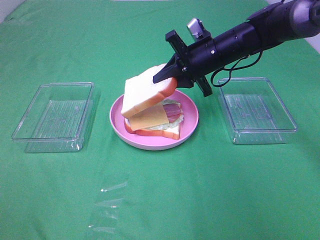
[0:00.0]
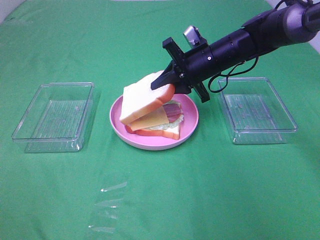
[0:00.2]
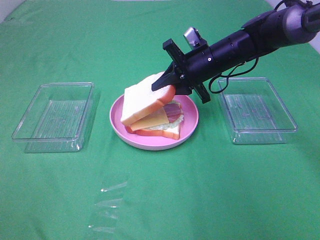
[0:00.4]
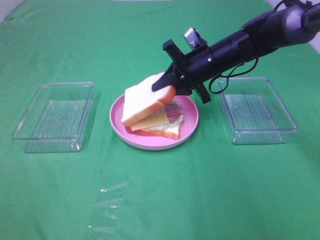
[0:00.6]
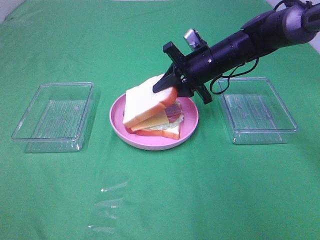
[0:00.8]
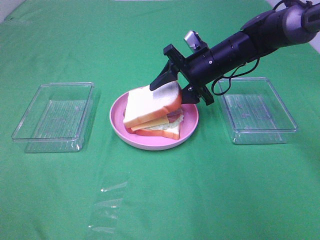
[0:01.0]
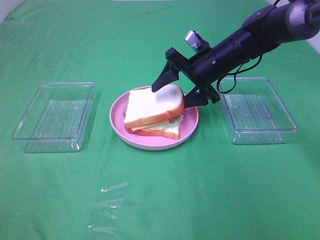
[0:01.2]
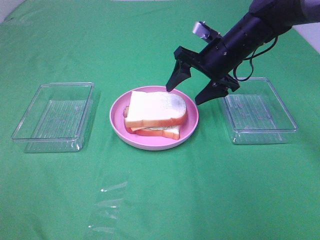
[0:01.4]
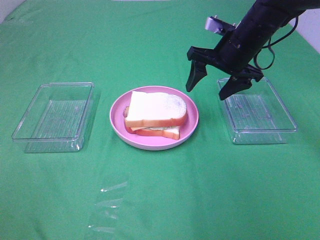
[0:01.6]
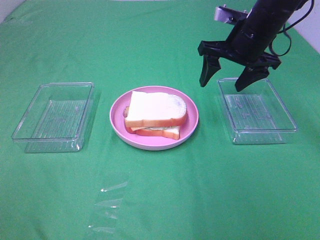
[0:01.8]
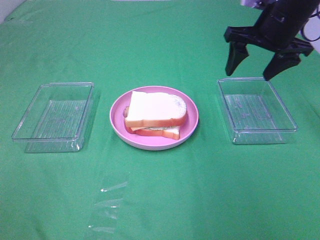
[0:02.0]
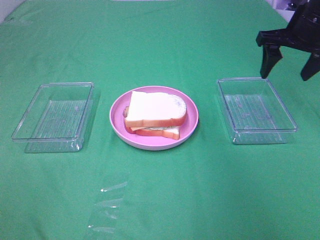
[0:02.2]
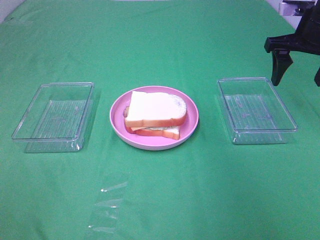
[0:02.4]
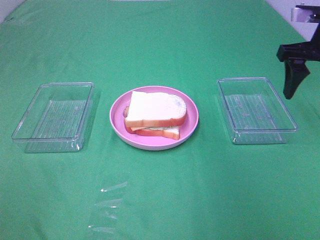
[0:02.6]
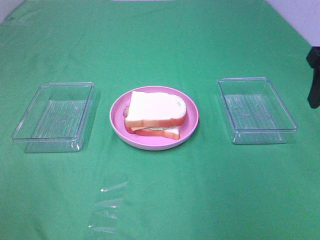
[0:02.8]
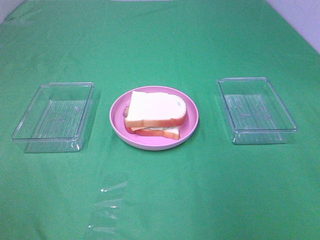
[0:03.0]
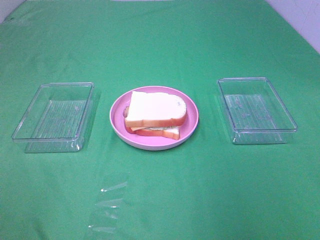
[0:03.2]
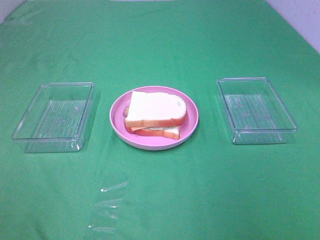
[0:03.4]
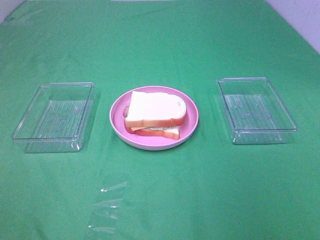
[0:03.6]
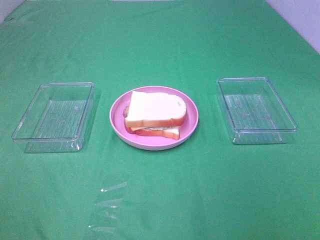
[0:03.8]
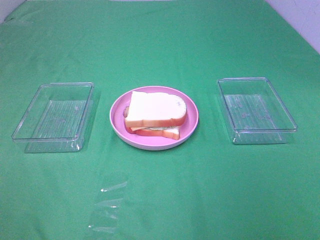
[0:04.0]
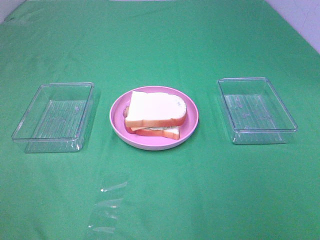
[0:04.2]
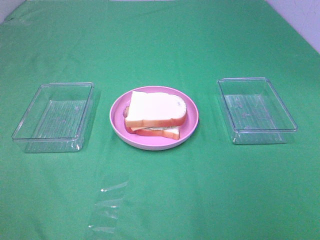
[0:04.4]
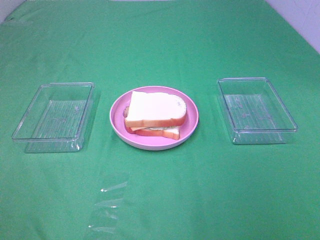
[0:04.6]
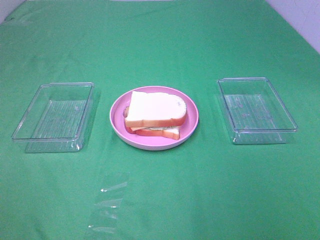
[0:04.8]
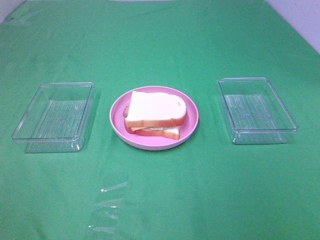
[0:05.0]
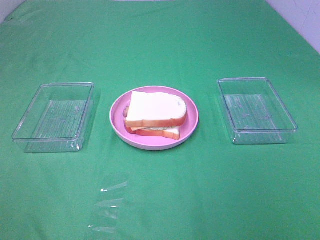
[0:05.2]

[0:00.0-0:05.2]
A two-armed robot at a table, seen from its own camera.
Task of the whole recording: Make sandwiches.
0:00.0 to 0:01.8: The right gripper travels upward and to the right by approximately 10 cm, and opens.
0:01.8 to 0:03.4: The right gripper is displaced backward by approximately 35 cm.

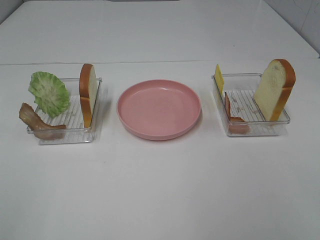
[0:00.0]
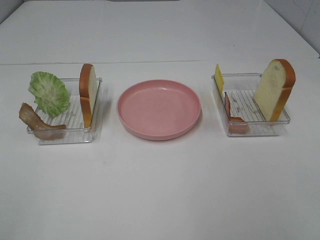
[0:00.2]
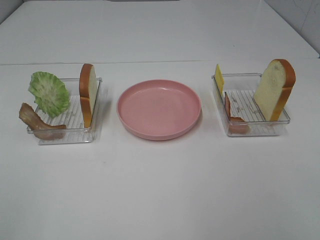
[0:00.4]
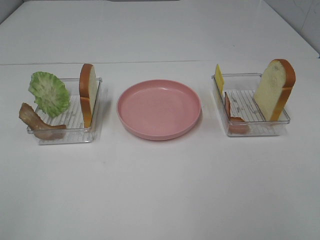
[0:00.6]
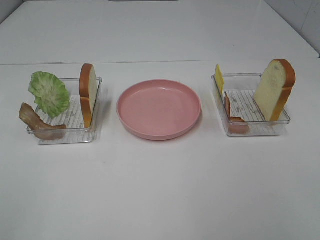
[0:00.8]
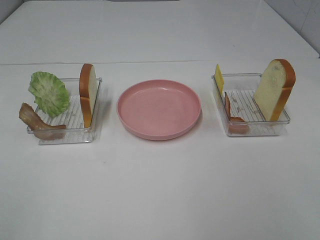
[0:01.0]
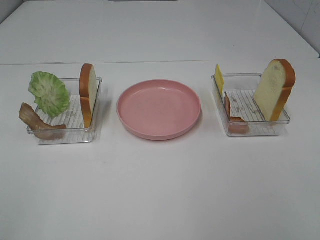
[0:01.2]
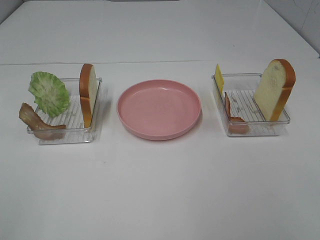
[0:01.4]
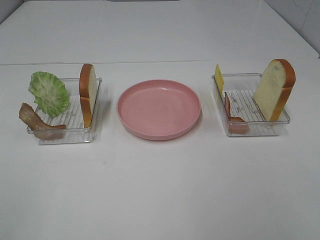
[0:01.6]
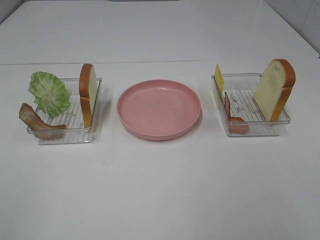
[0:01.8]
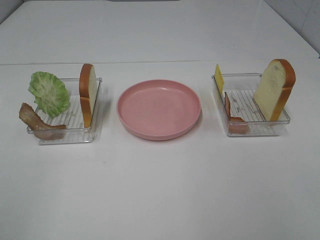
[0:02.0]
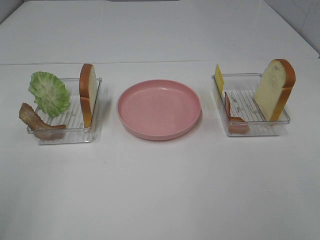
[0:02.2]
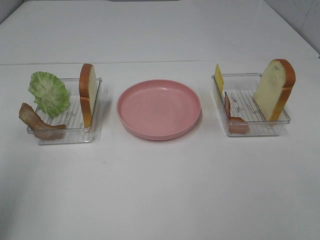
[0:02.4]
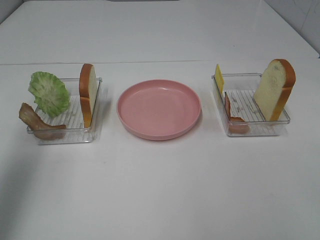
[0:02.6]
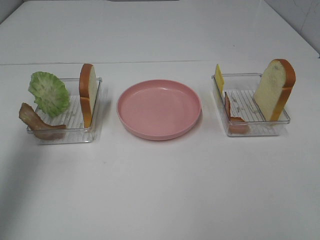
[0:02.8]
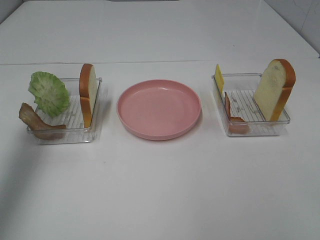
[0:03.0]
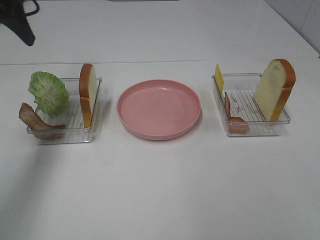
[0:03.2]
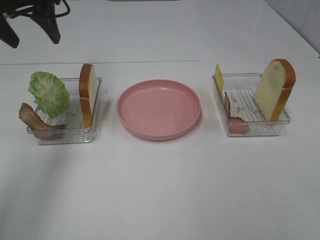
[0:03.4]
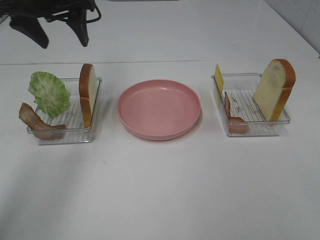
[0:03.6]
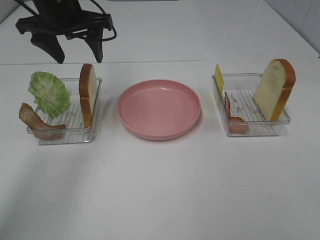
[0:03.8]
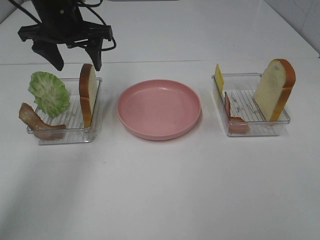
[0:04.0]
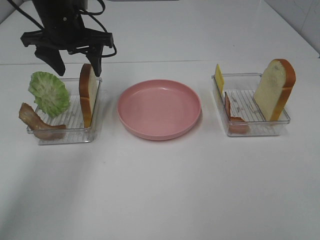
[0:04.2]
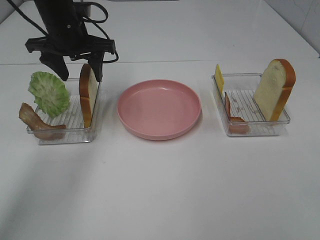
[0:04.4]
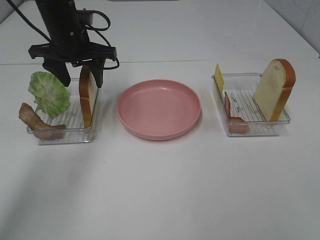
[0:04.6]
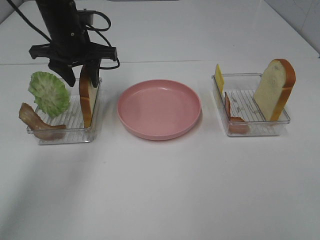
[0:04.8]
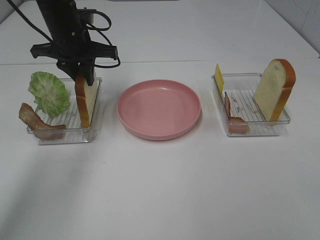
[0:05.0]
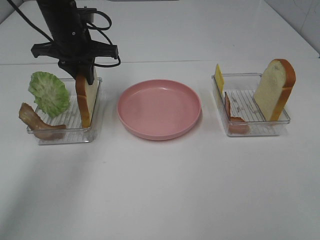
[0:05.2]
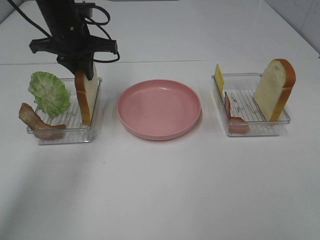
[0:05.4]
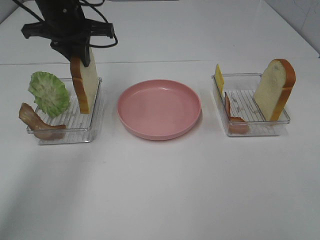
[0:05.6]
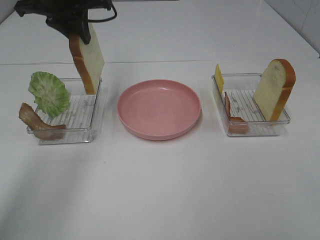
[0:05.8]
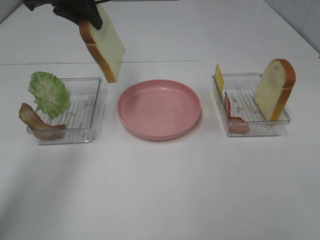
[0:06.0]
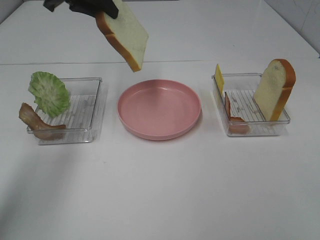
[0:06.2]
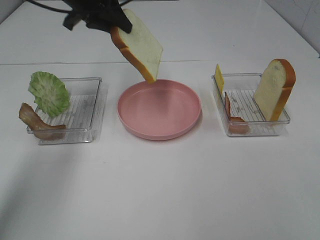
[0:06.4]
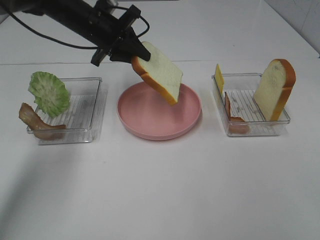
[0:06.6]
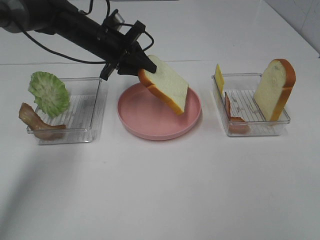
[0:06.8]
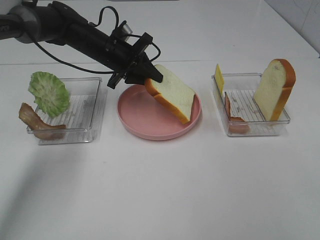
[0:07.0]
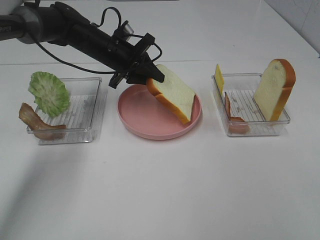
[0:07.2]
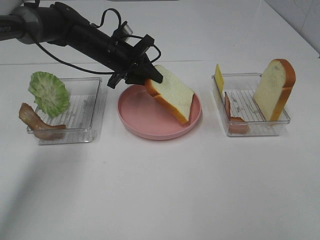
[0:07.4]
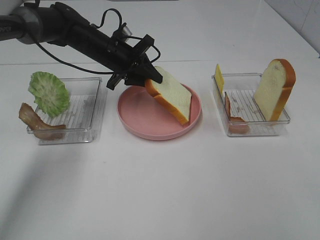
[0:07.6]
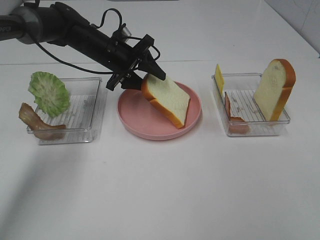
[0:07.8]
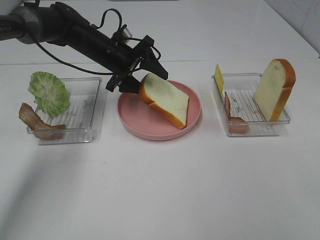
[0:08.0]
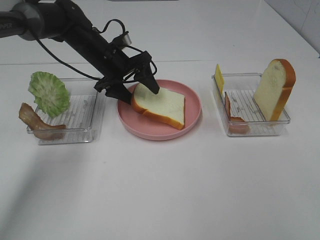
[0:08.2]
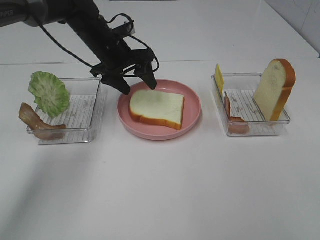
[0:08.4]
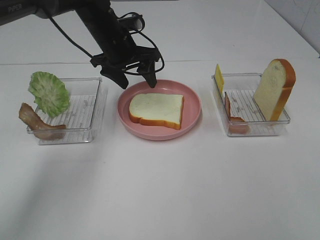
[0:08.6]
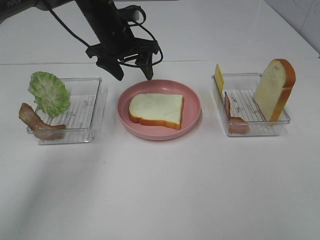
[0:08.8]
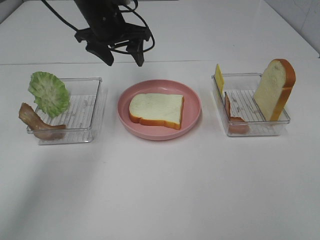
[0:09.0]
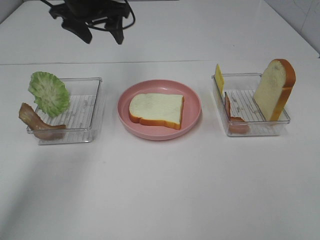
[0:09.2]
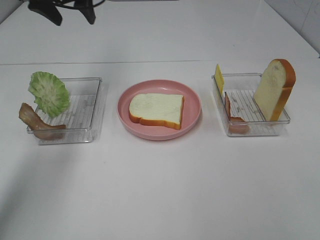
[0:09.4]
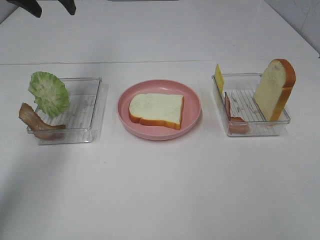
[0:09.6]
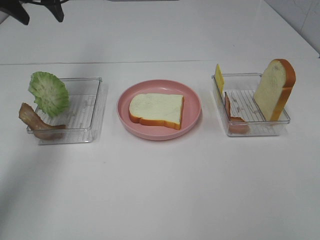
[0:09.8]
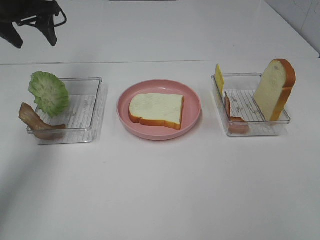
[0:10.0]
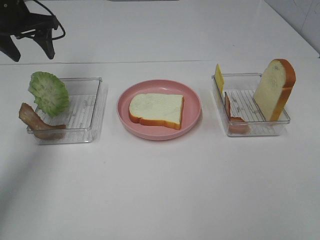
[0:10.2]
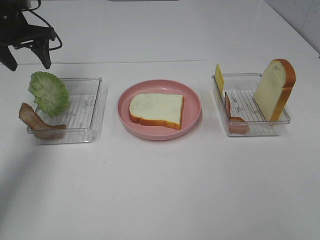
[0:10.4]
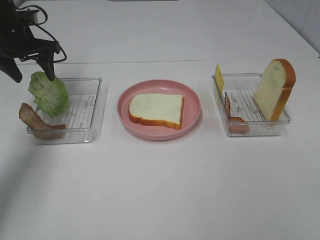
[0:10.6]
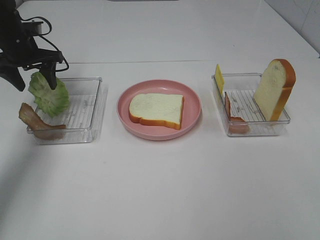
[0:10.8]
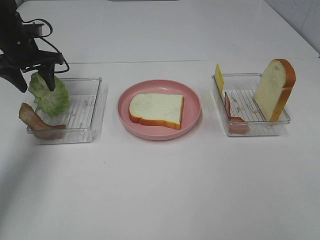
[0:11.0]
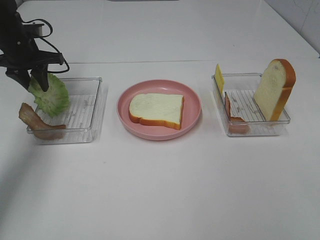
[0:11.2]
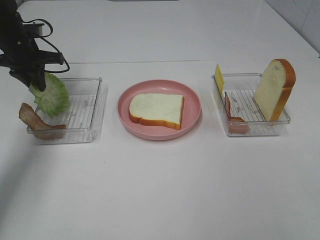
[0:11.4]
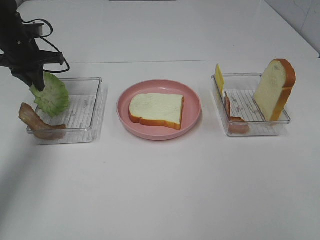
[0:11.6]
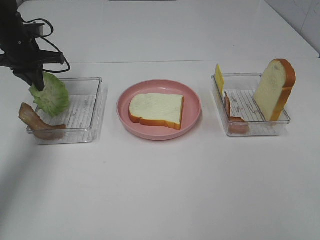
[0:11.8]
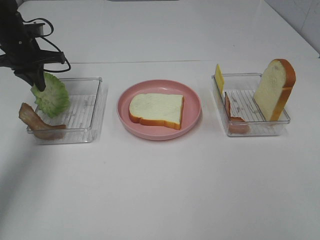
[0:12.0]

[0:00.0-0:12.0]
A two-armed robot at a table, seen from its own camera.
Task of the whole recording: Make sandwiches.
Step, 0:00.0 to 0:04.8: Left hand:grab the bread slice.
Step, 0:05.0 to 0:08.4: Left hand:place the bread slice on the plate.
Step, 0:08.6 to 0:11.4: Left hand:grab the lettuce slice.
0:00.0 to 0:01.6: The two grippers keep their place.
0:01.6 to 0:03.0: The left gripper shifts some 30 cm forward.
0:03.0 to 0:04.4: The left gripper travels to the right, forward and downward by about 20 cm.
0:04.4 to 0:06.0: The left gripper goes roughly 10 cm upward, and closes.
0:06.0 to 0:07.6: The left gripper is displaced downward by some 20 cm.
0:07.6 to 0:09.0: The left gripper goes some 10 cm upward, and opens up.
0:09.0 to 0:10.4: The left gripper goes approximately 20 cm to the left.
0:10.4 to 0:12.0: The left gripper shifts about 5 cm downward, and closes.

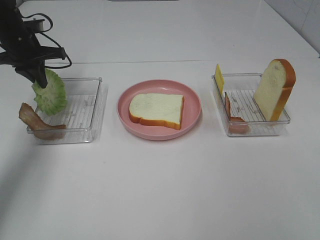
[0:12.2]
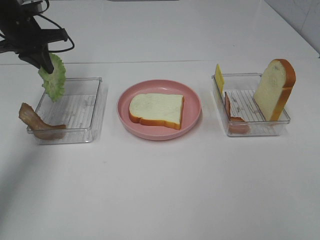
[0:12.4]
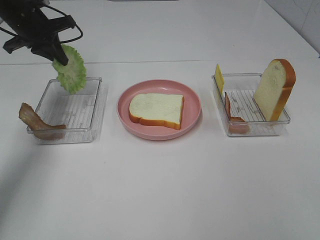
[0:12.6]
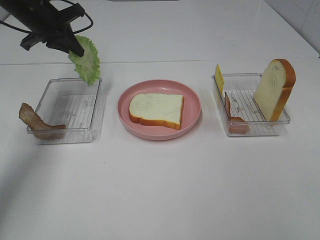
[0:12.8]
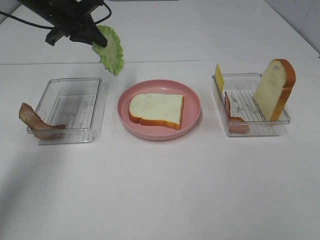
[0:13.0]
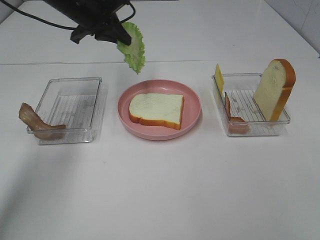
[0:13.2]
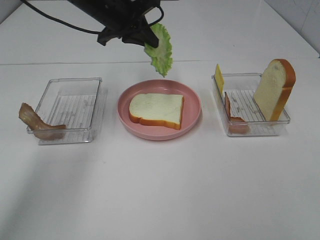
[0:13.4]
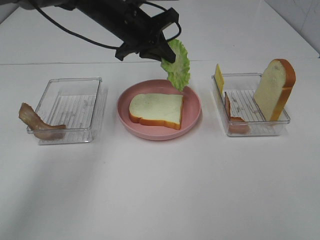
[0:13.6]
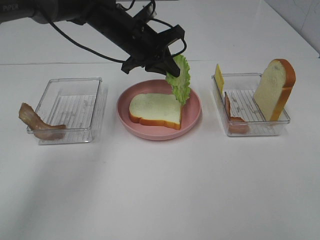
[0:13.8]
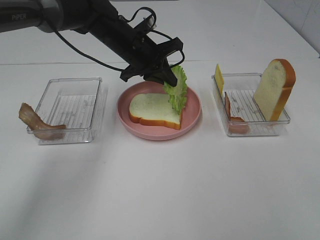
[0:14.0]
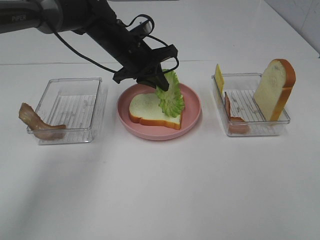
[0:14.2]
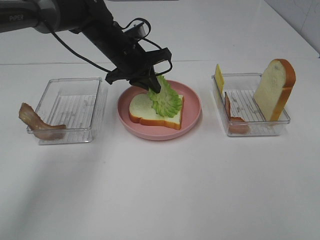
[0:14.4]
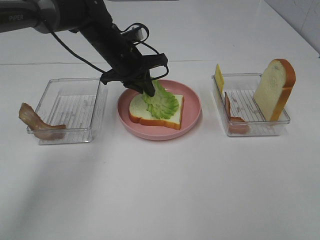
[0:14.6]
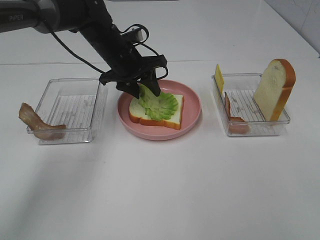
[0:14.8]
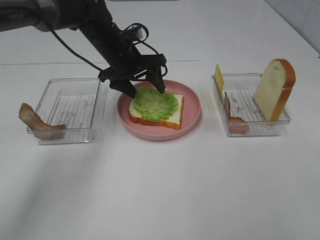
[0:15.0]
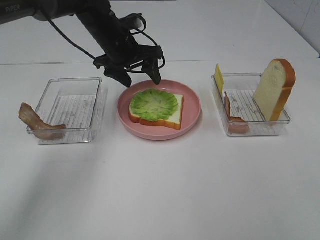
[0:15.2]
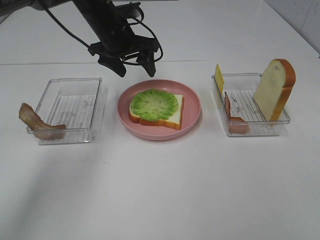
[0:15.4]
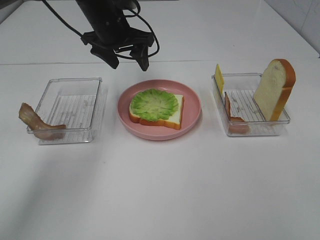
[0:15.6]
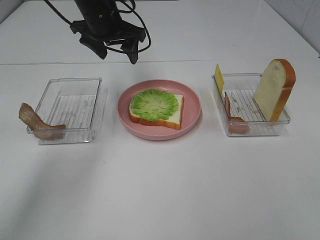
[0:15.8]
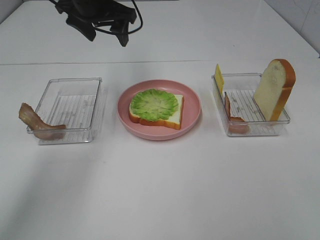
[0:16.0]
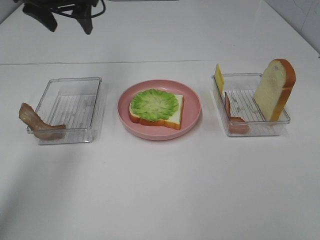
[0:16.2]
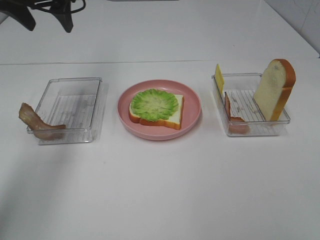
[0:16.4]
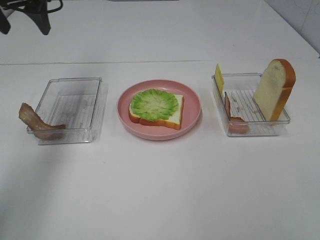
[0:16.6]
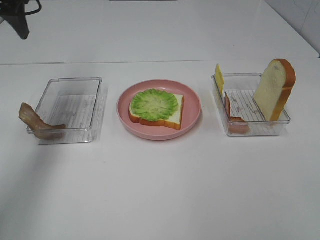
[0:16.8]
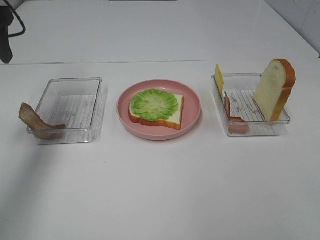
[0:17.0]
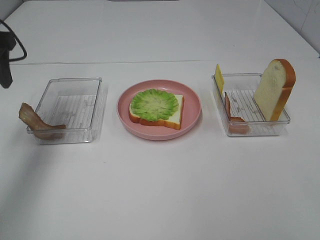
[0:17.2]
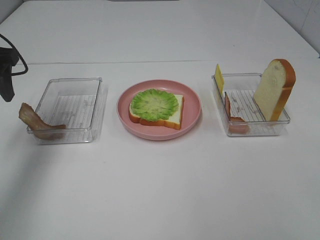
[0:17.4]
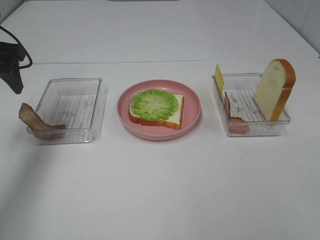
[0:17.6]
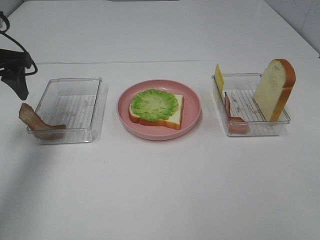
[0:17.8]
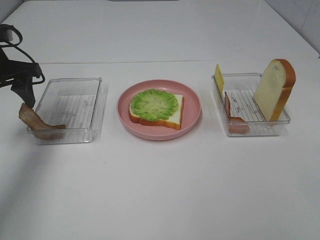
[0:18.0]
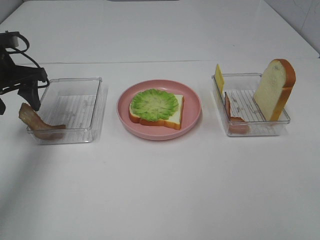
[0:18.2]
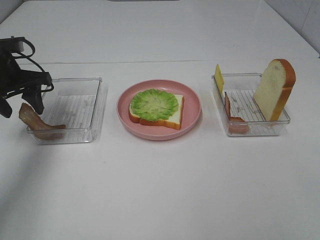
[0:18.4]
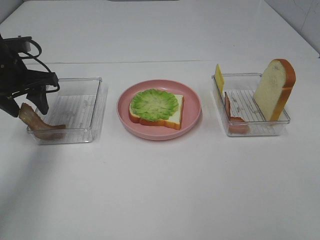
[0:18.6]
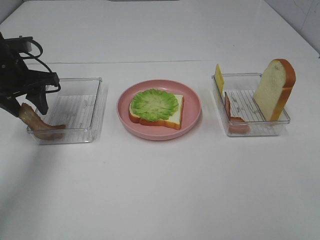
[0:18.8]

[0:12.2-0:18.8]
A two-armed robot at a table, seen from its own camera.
Task of the whole recording: Make sandwiches.
Step, 0:12.2 to 0:15.2: Left hand:place the lettuce slice on the bread slice.
0:12.2 to 0:13.8: The left gripper shifts about 25 cm to the right.
0:13.8 to 0:15.4: The left gripper opens.
0:15.4 to 0:17.2: The left gripper travels to the left and backward by some 25 cm.
0:17.2 to 0:18.8: The left gripper goes roughly 10 cm downward.
